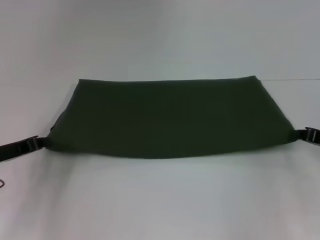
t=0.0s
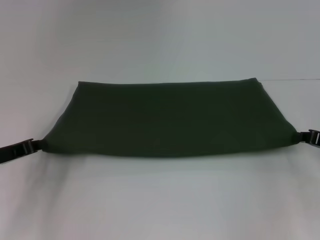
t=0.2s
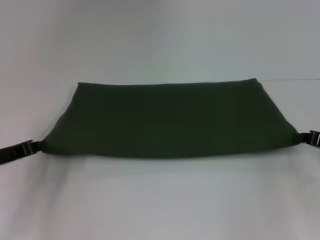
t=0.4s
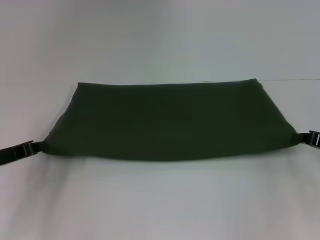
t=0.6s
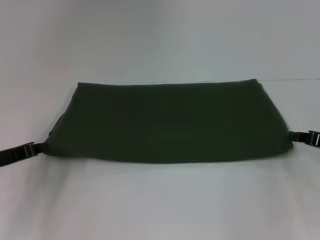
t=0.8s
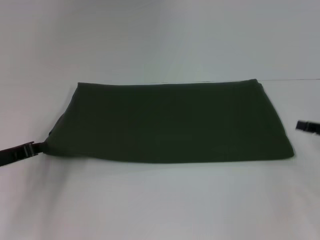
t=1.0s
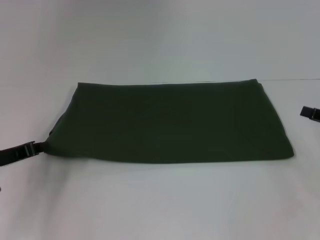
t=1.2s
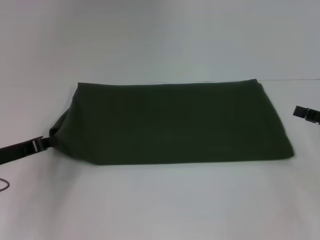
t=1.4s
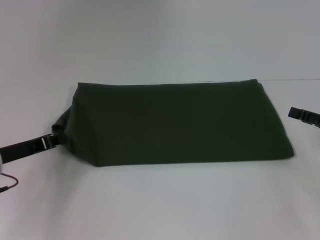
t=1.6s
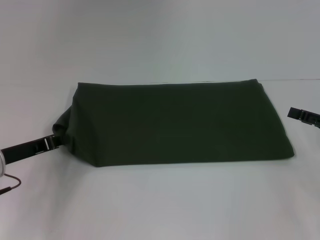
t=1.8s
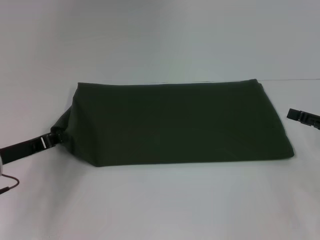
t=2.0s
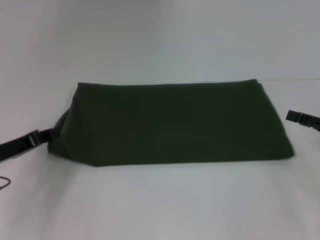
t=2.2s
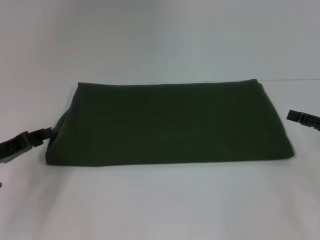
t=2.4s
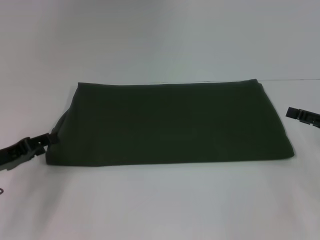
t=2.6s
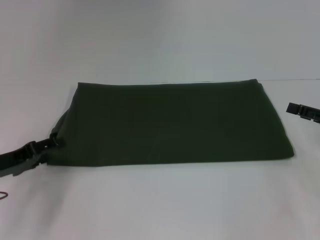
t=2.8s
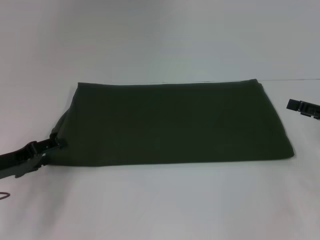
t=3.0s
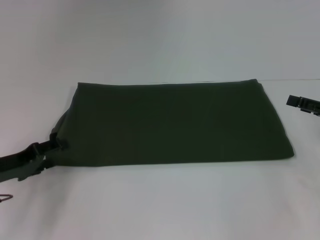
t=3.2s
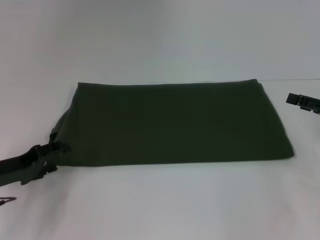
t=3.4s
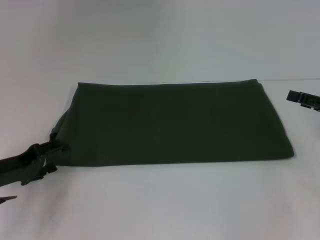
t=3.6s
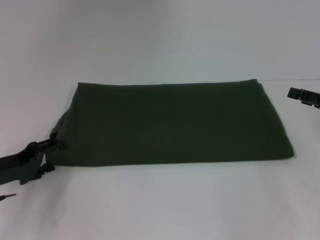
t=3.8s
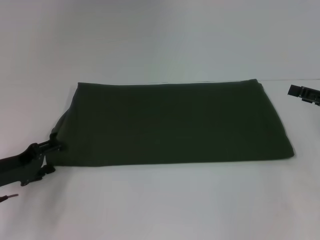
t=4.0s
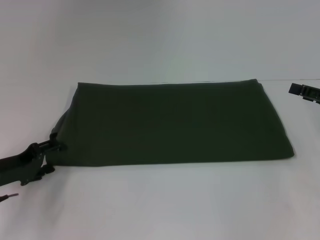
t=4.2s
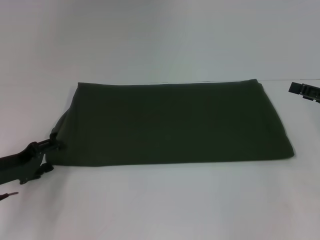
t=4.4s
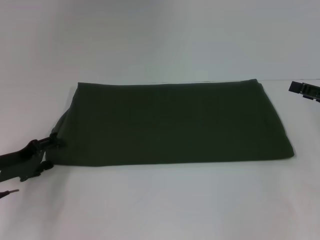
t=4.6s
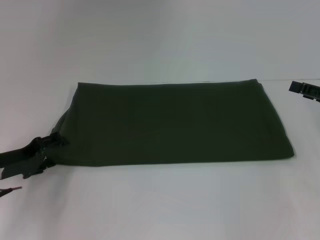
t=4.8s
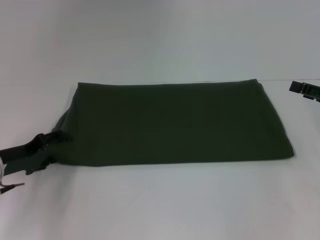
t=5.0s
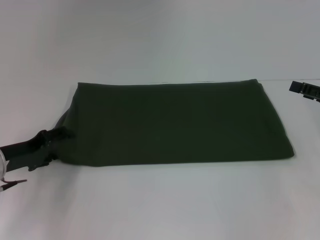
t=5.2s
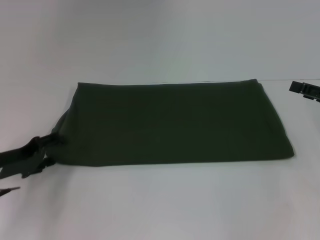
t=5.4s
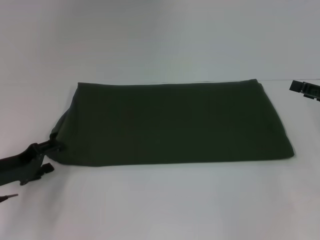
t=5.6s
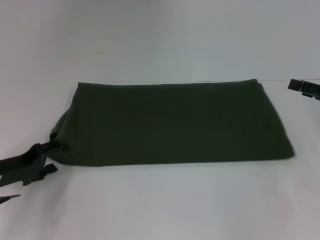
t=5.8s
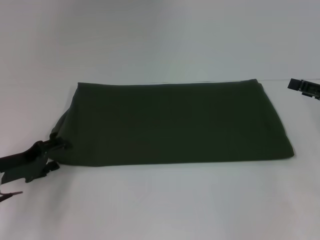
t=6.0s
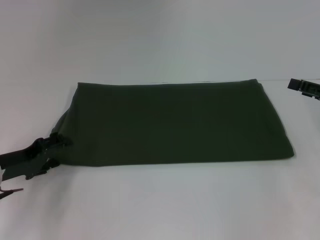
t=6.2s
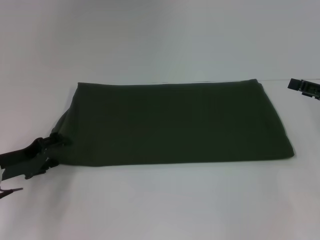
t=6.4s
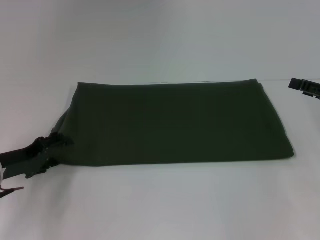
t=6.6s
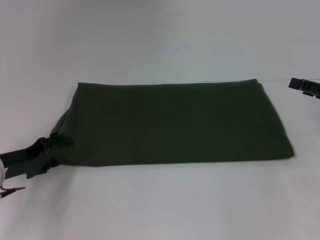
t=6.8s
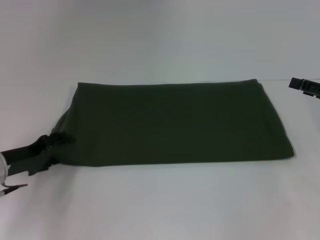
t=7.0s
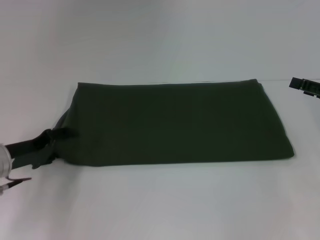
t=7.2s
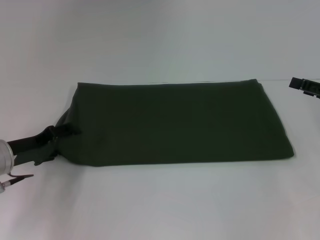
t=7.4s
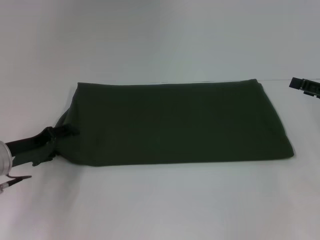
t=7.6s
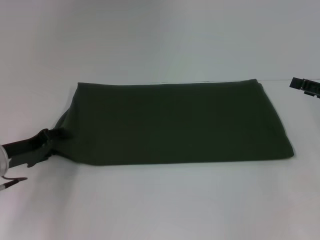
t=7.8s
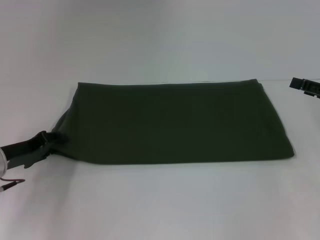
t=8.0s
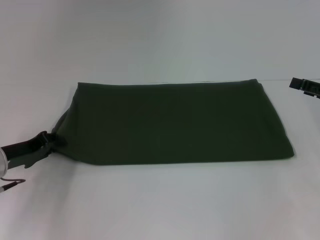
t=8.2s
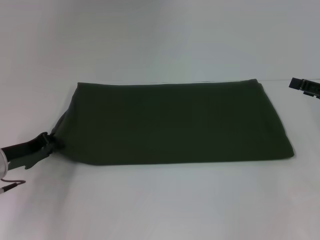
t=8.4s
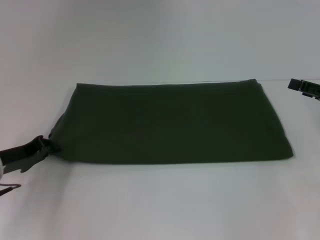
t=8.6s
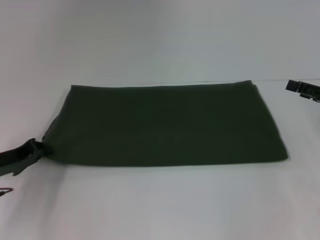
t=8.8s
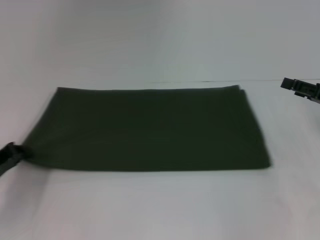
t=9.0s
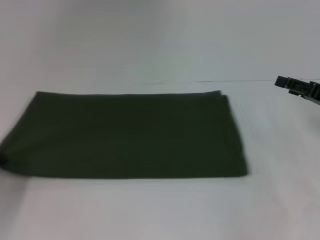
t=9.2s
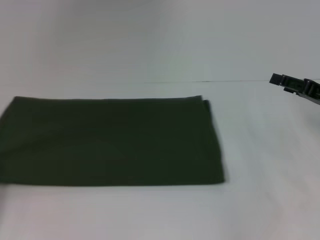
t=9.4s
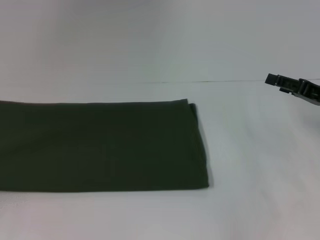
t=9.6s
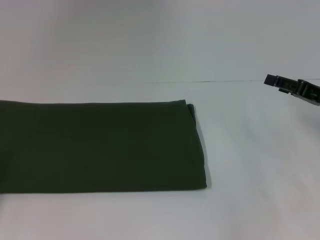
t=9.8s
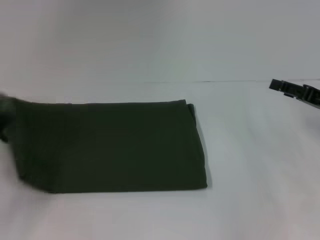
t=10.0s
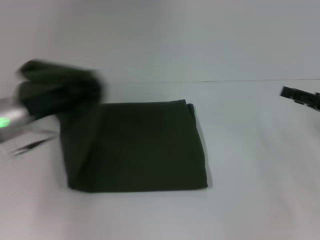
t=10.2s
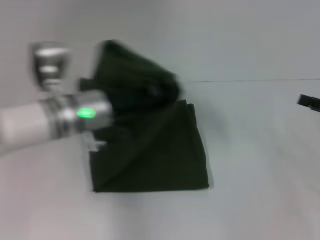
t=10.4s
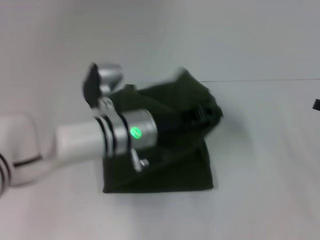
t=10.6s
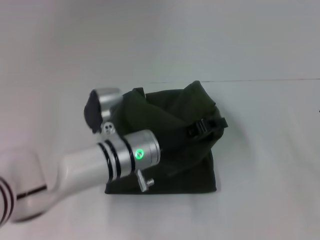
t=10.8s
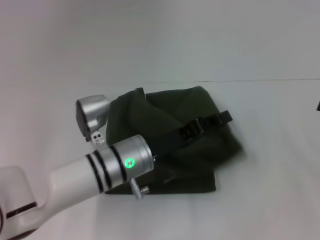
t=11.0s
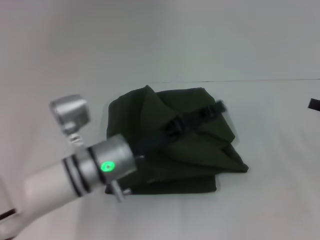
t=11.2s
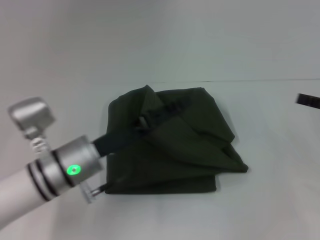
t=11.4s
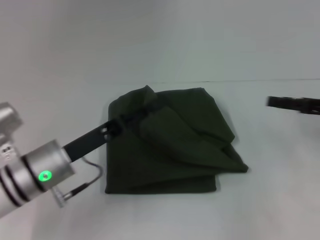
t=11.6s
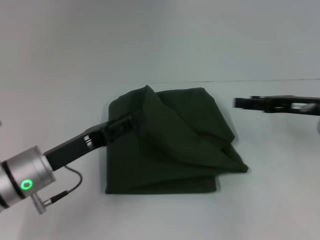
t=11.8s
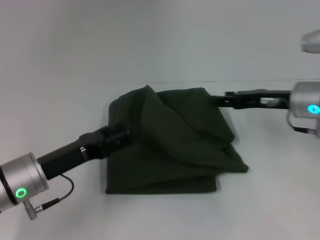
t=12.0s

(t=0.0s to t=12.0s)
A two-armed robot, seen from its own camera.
Step, t=0.0s - t=11.2s: Fold the clothes with your left hand.
t=0.0s - t=1.6s: The right gripper opens its fingers.
t=1.6s - t=3.0s: The left gripper opens its fingers.
t=3.0s - t=7.6s: There are only small adjustments of the grippers.
t=7.6s - t=9.0s: The left gripper changes place by roughly 5 cm, and closes.
t=9.0s - t=10.4s: The left gripper moves to the right, roughly 20 cm.
t=10.4s - t=12.0s: The left gripper is displaced backward and to the left by some 15 cm, and opens up, while the right gripper moves to the left and forward, about 15 cm.

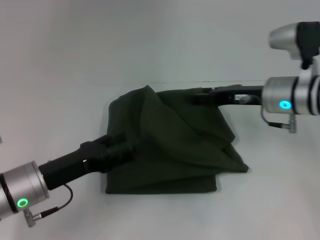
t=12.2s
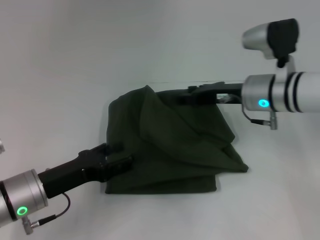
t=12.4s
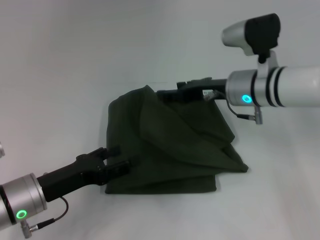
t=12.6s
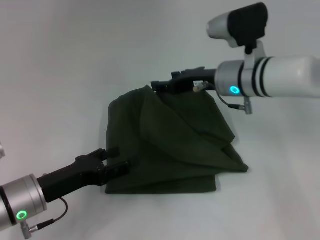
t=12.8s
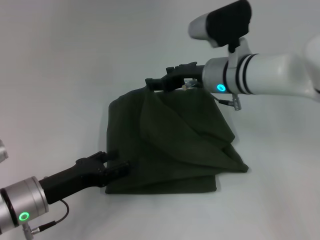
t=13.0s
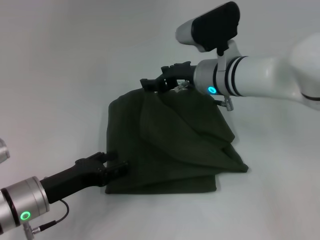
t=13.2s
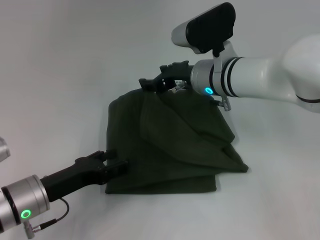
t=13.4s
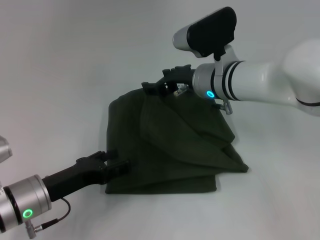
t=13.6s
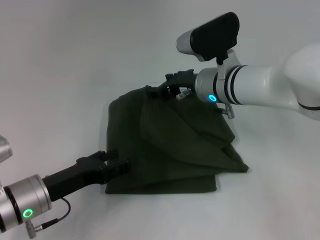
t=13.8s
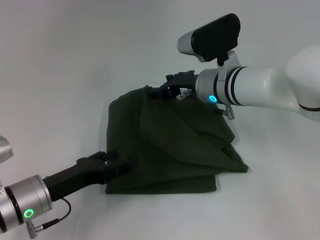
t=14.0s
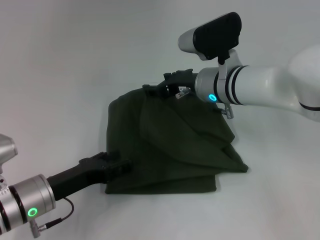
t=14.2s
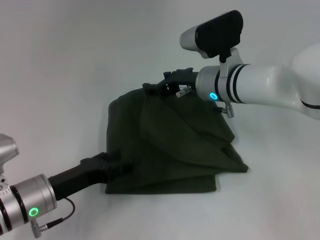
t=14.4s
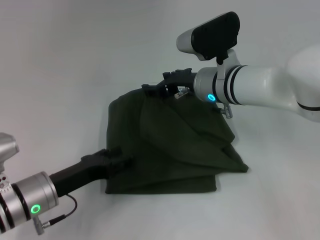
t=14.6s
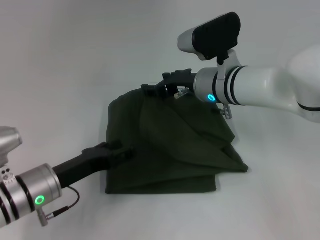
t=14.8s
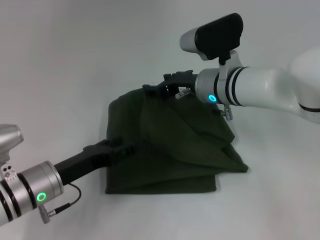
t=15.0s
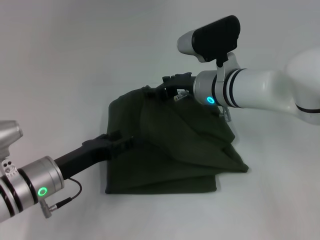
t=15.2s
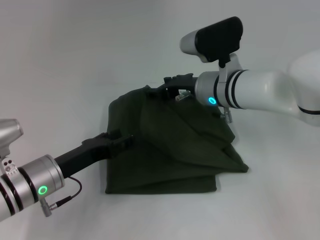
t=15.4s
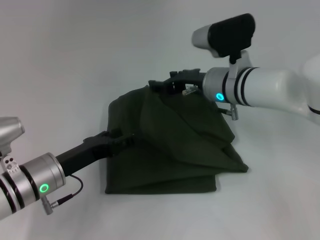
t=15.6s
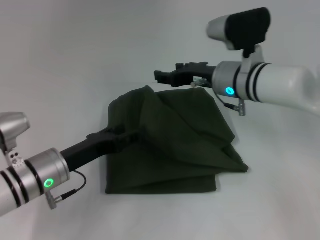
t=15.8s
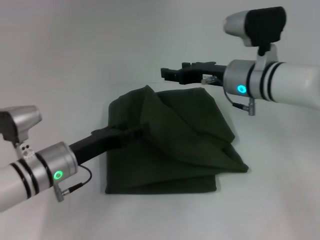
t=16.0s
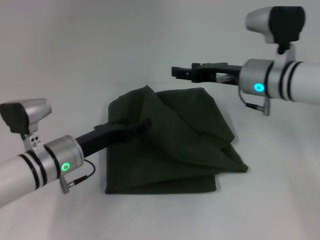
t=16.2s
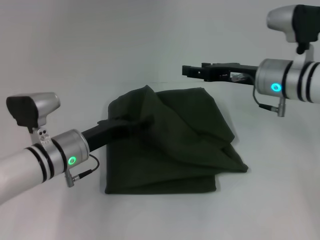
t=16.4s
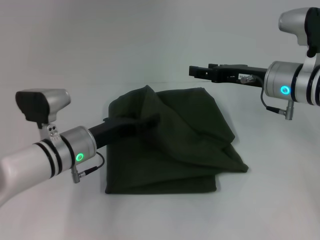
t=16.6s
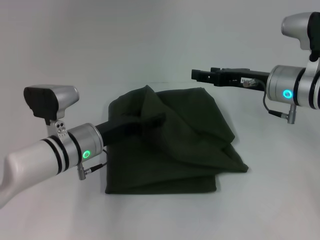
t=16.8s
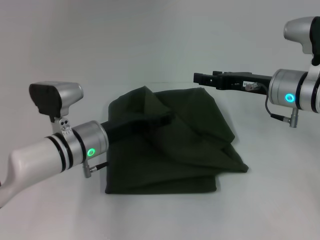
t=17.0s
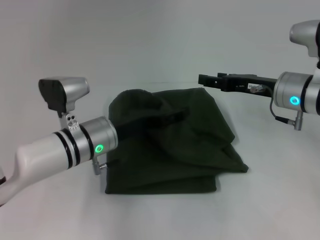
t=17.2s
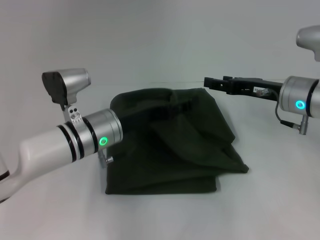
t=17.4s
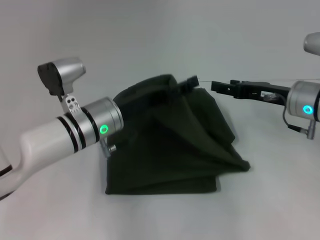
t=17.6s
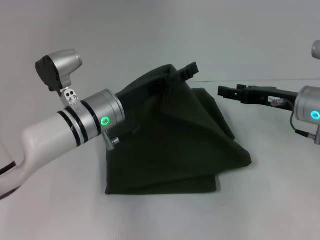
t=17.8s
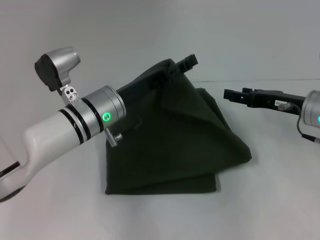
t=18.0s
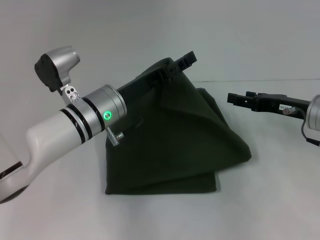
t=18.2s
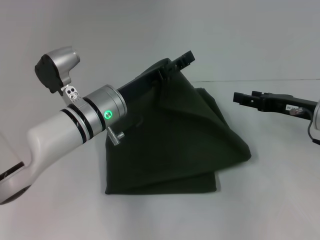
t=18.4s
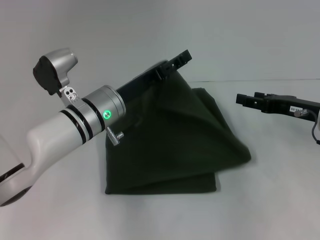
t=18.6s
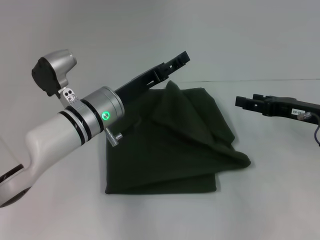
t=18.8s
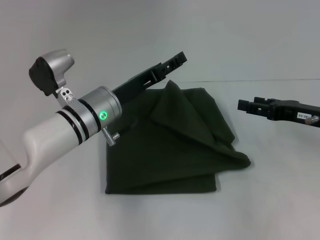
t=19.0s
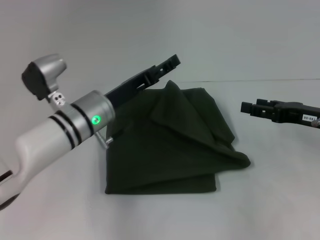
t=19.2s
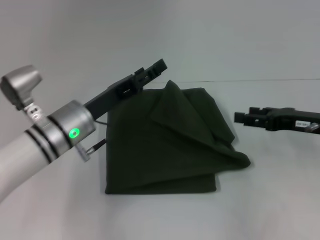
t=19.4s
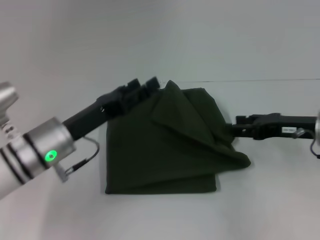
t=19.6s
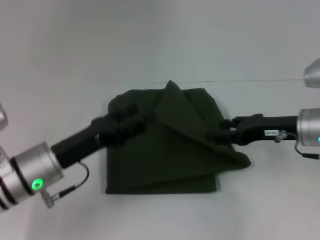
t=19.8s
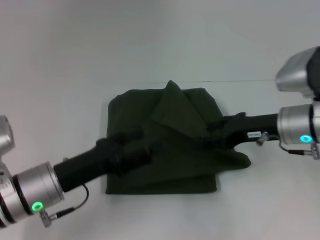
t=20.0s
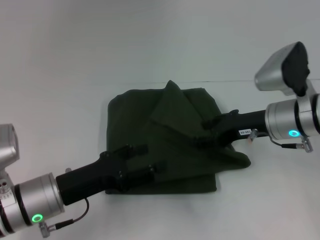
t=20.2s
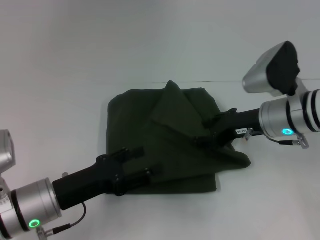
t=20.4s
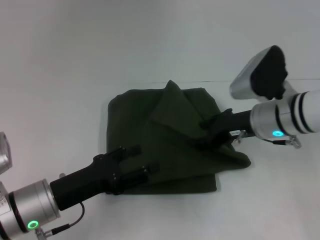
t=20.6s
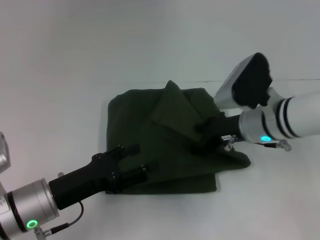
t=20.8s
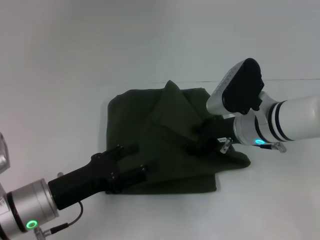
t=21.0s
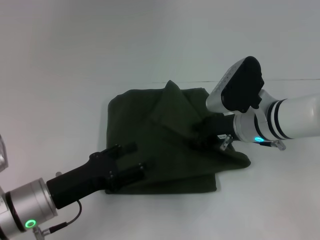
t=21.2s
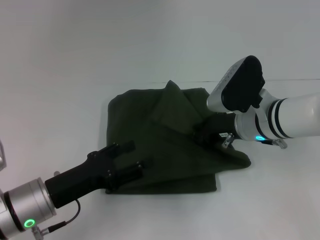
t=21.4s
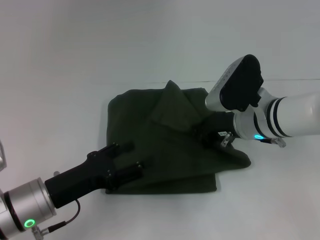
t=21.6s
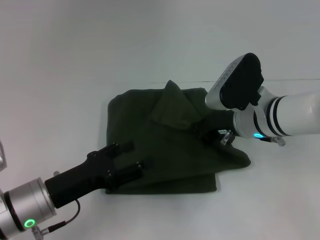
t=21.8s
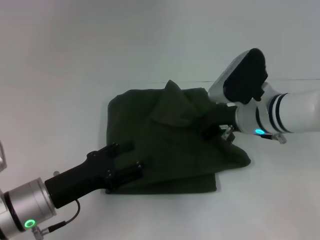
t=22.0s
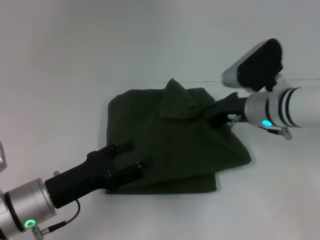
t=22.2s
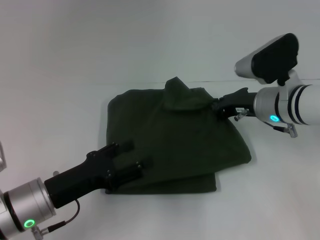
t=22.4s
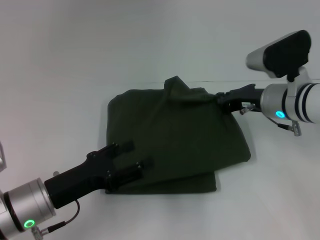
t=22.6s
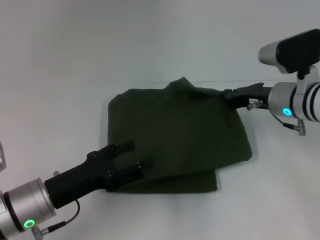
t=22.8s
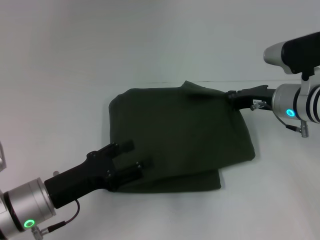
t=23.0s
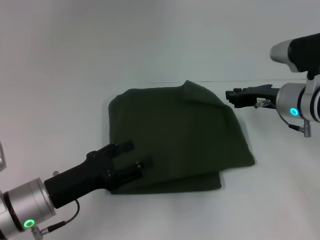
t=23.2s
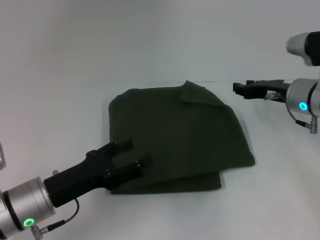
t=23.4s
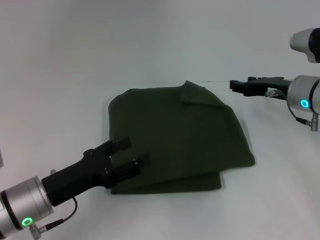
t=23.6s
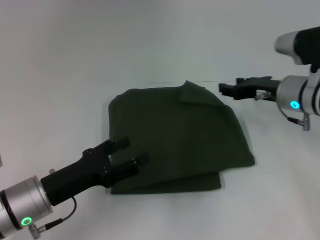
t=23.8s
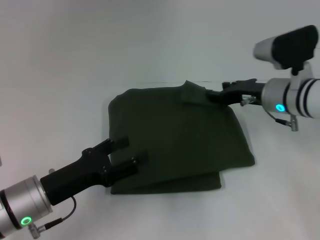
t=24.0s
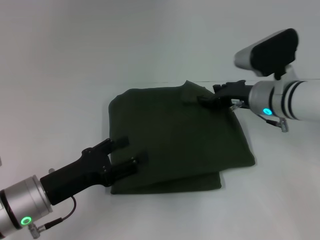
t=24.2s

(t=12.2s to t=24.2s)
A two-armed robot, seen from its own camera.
t=12.2s - t=13.8s: The right gripper shifts approximately 10 cm to the left.
t=13.8s - t=15.2s: The grippers make only small movements.
t=15.2s - t=16.6s: The left gripper travels forward by roughly 5 cm; the right gripper goes some 10 cm to the right.
t=16.6s - t=18.2s: The left gripper moves upward and to the right, approximately 5 cm, while the right gripper shifts approximately 5 cm to the right.
t=18.2s - t=19.8s: The left gripper shifts approximately 10 cm to the left and backward.
t=19.8s - t=21.2s: The right gripper shifts about 10 cm to the left.
t=21.2s - t=22.6s: The right gripper closes its fingers.
t=22.6s - t=24.2s: The right gripper opens.
